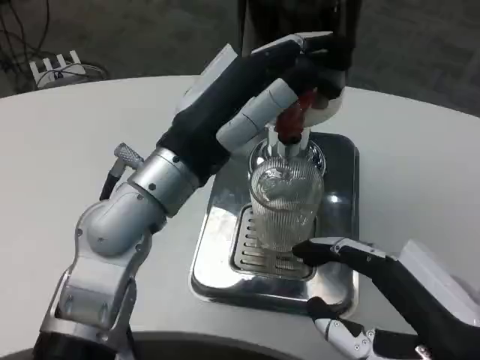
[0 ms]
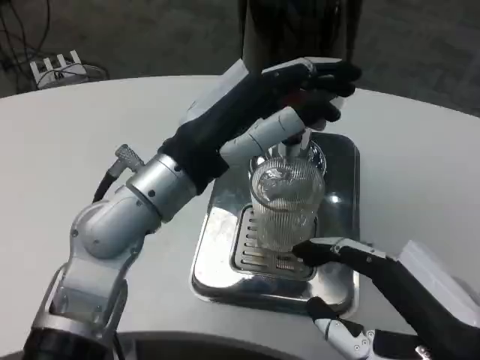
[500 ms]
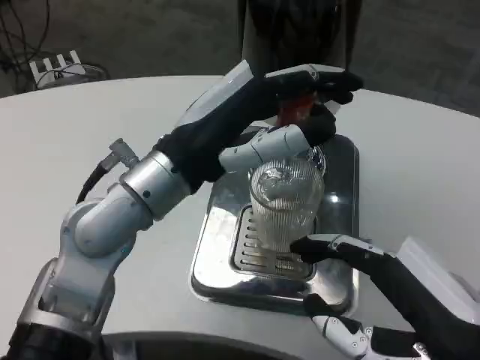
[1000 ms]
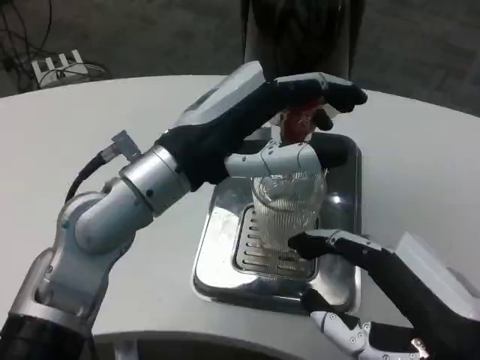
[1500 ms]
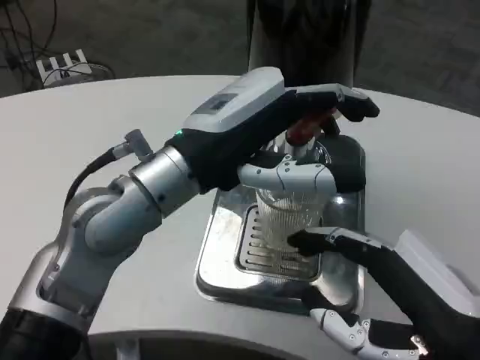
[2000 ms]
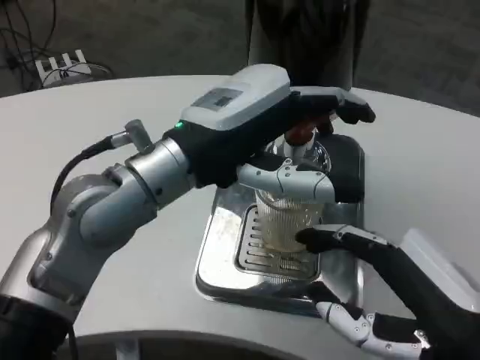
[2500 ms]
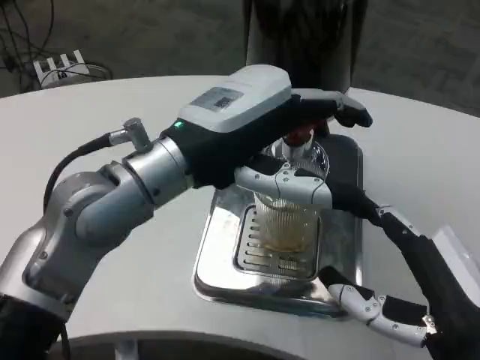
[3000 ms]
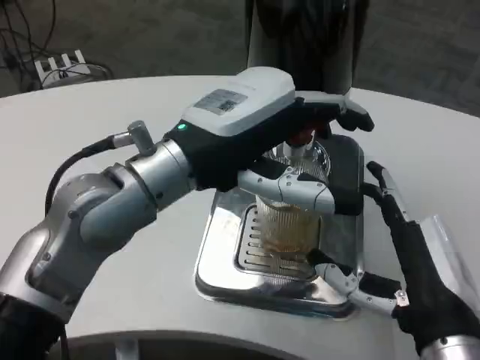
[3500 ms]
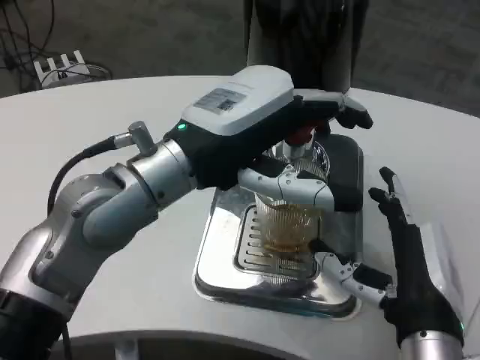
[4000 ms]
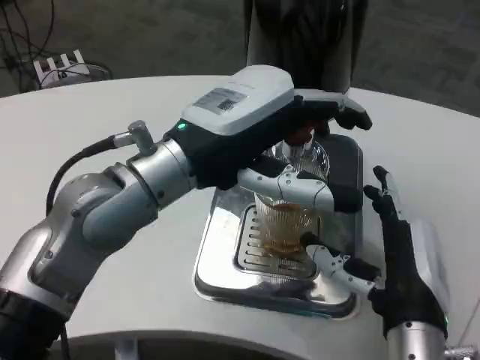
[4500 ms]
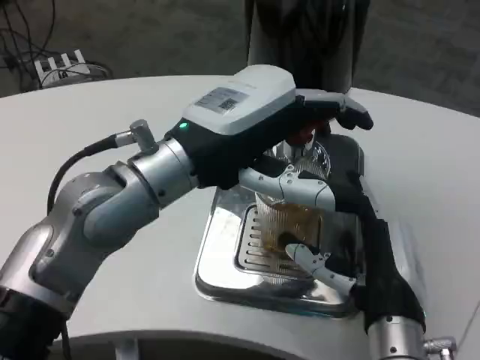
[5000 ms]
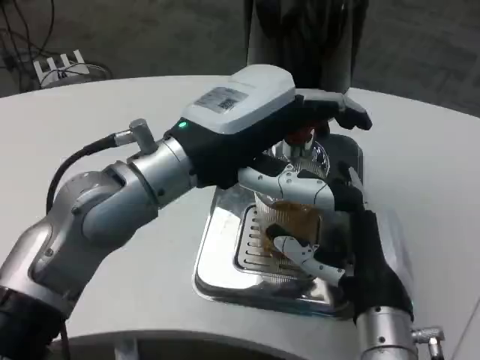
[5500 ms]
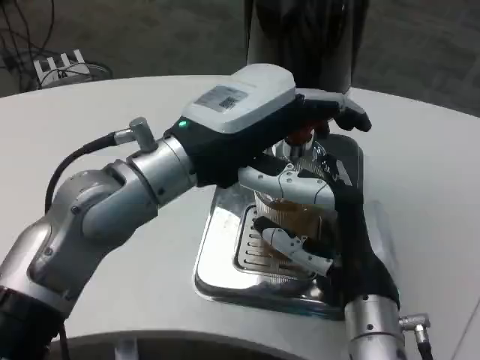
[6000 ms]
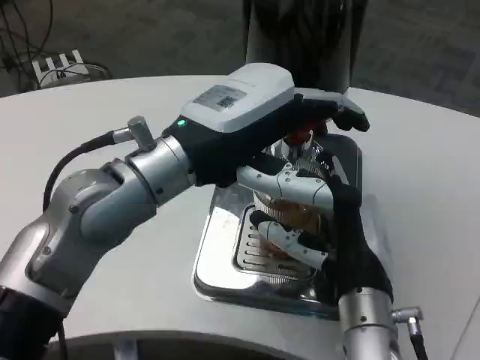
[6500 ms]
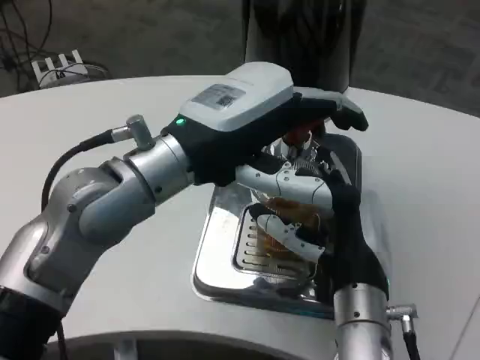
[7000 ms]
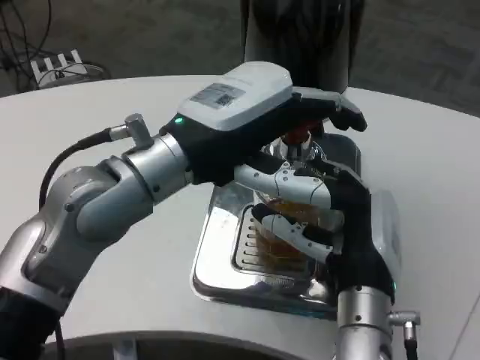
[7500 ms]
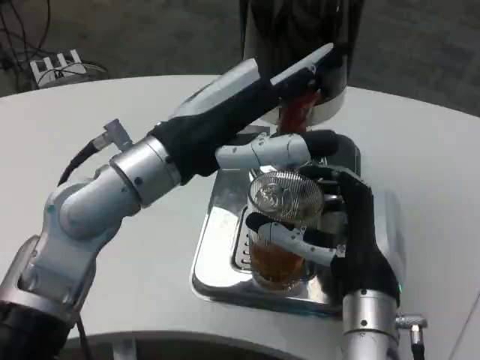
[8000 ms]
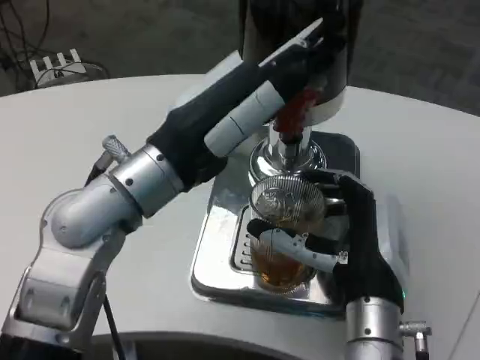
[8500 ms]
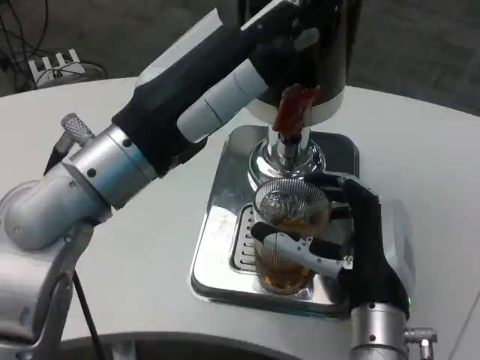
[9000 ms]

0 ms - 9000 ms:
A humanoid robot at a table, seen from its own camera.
Task of the whole recording: Grasp the cup under the faucet to collect the drink, then remove the cup.
2000 ms - 4500 ms: The right hand travels forward, to the left and downward by roughly 10 cm.
4500 ms - 7000 ms: The right hand moves some 5 cm.

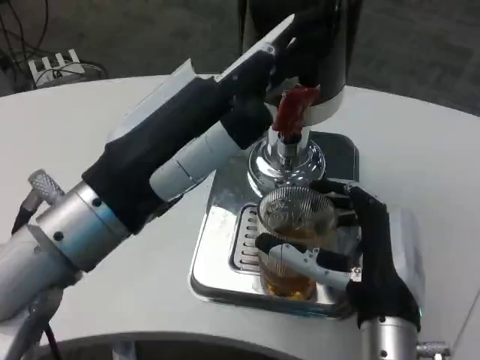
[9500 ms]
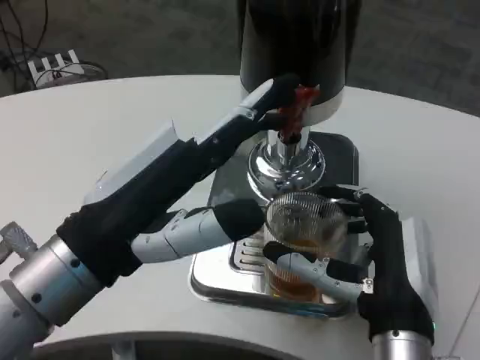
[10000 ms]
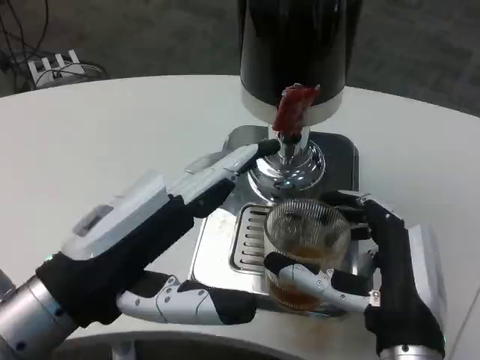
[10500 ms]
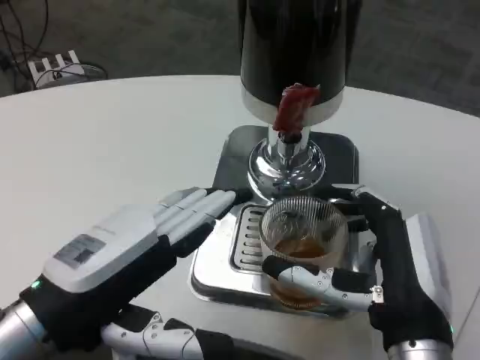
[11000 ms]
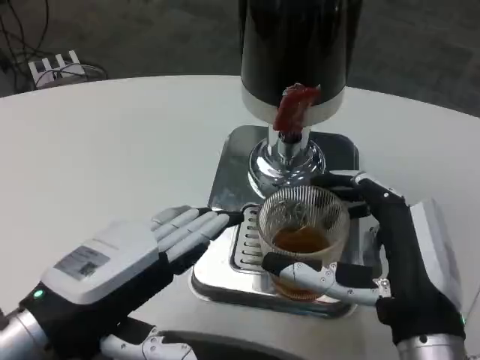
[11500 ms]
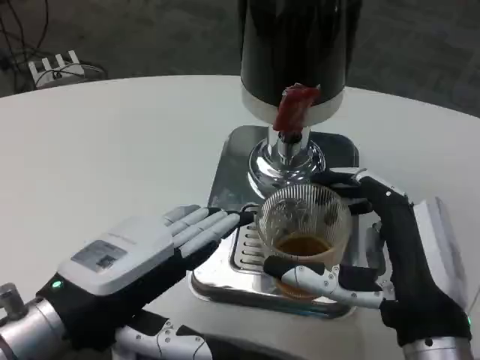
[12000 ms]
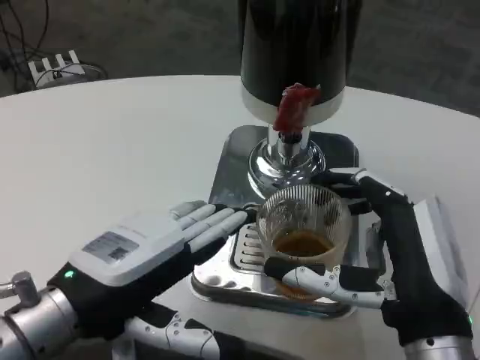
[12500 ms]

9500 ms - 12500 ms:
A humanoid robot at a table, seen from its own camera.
Task of the whole recording: Grasp the cup under the faucet to collect the drink, then remove the cup.
9500 ms - 11000 ms: The left hand travels downward and to the left by roughly 10 cm.

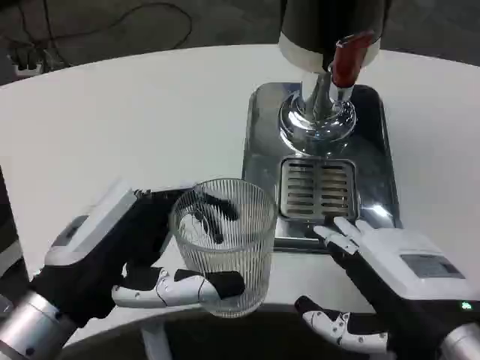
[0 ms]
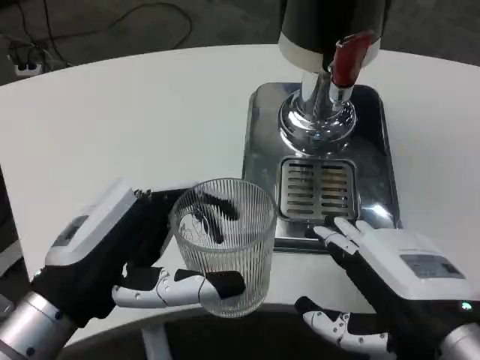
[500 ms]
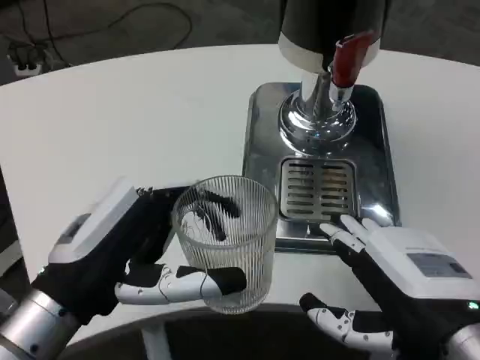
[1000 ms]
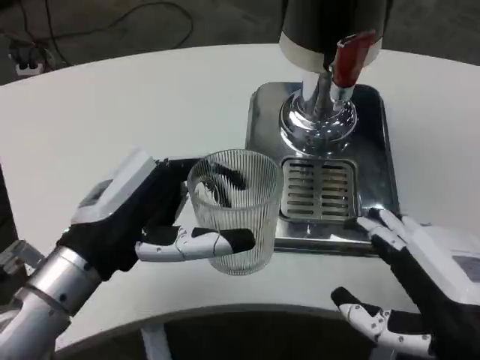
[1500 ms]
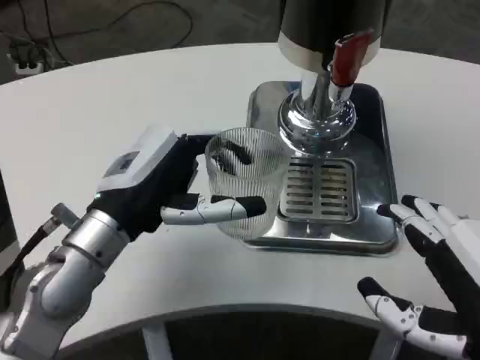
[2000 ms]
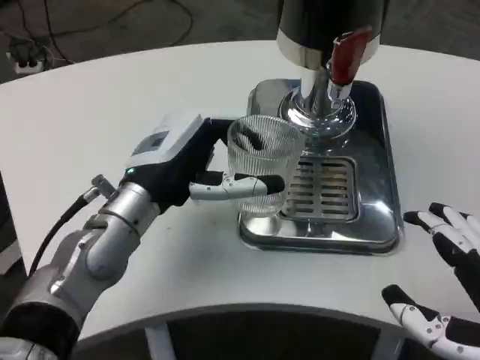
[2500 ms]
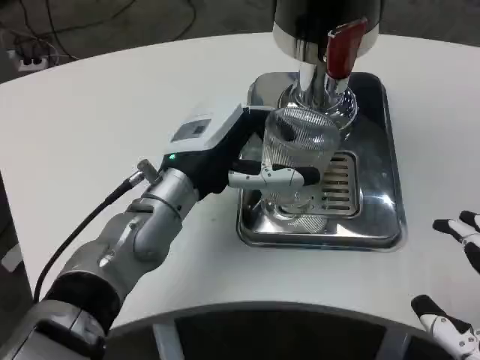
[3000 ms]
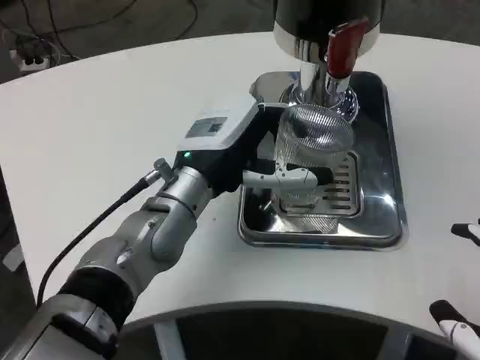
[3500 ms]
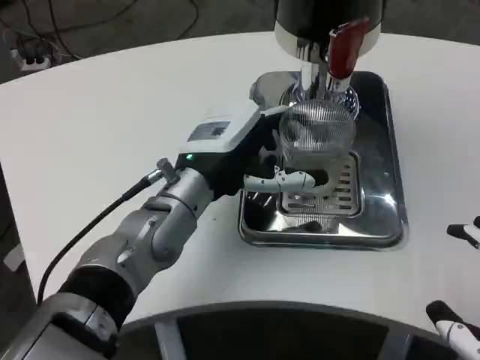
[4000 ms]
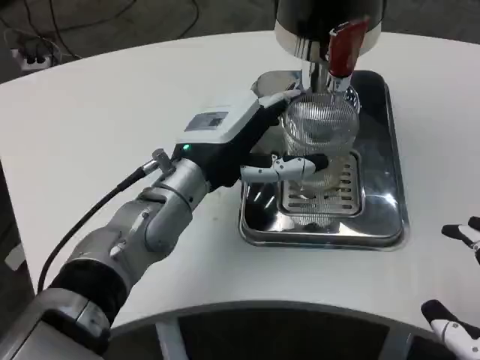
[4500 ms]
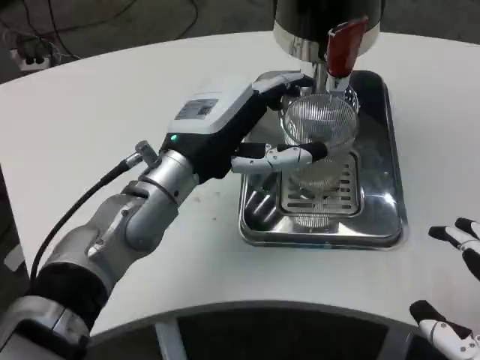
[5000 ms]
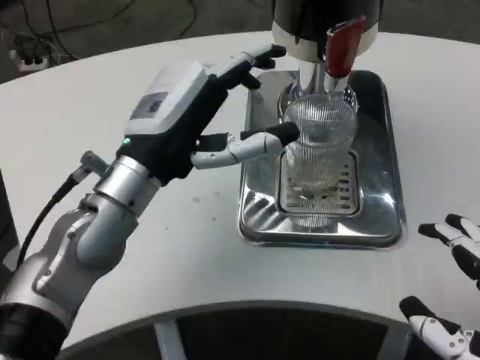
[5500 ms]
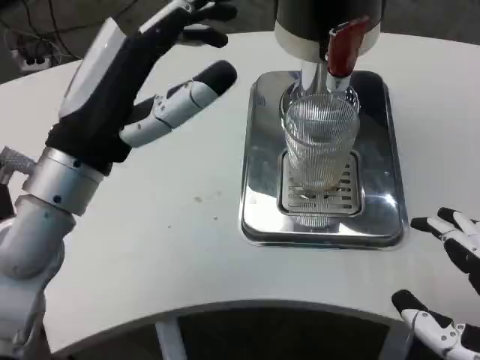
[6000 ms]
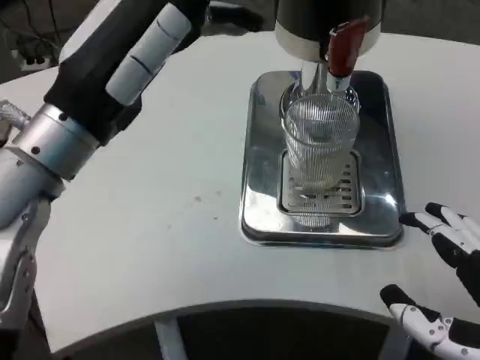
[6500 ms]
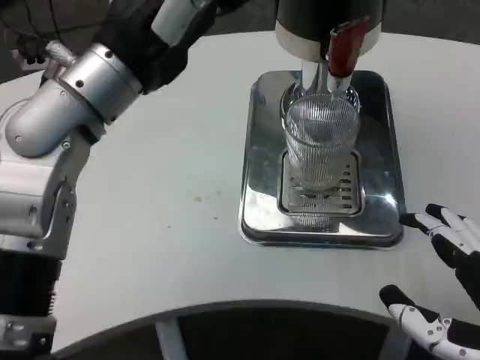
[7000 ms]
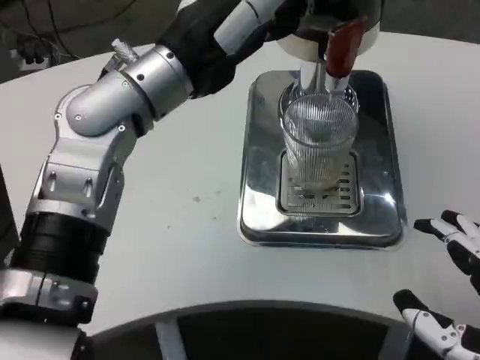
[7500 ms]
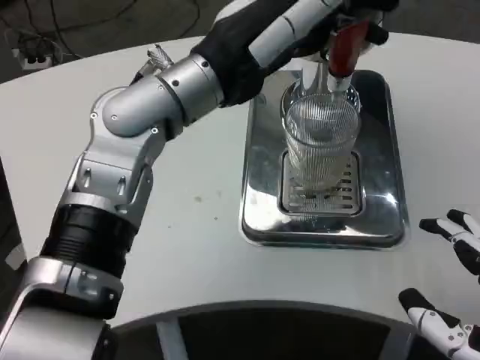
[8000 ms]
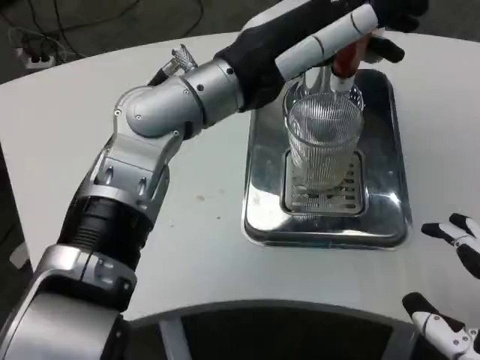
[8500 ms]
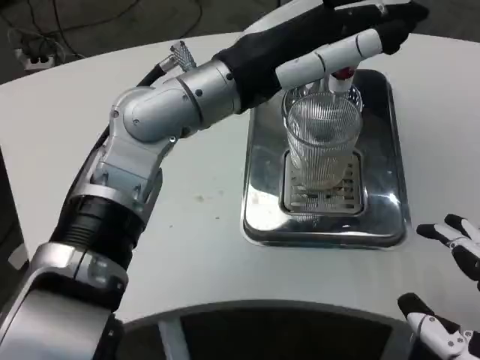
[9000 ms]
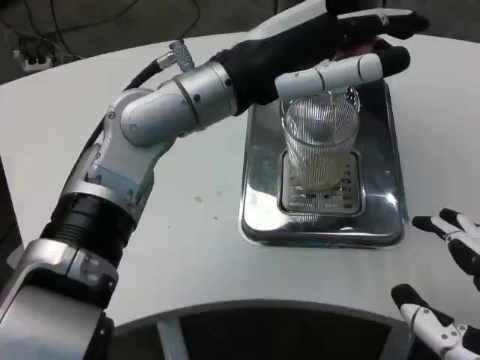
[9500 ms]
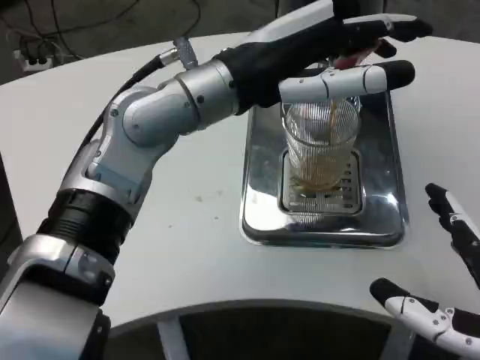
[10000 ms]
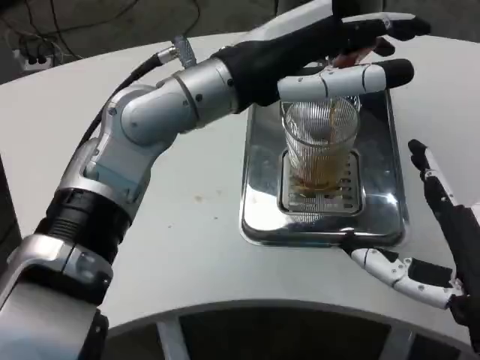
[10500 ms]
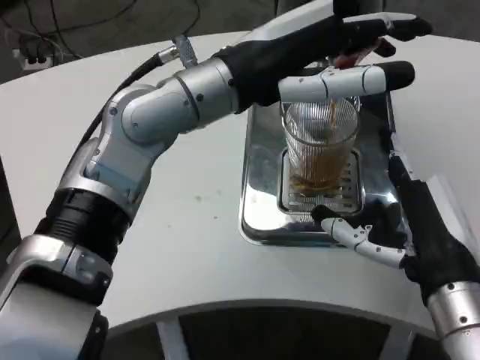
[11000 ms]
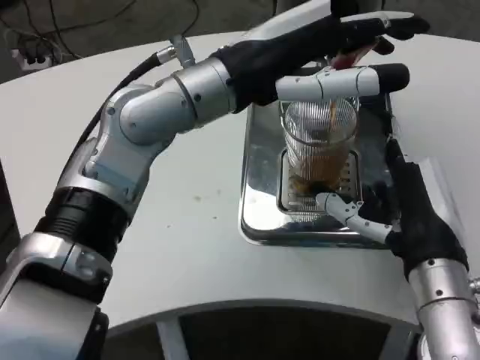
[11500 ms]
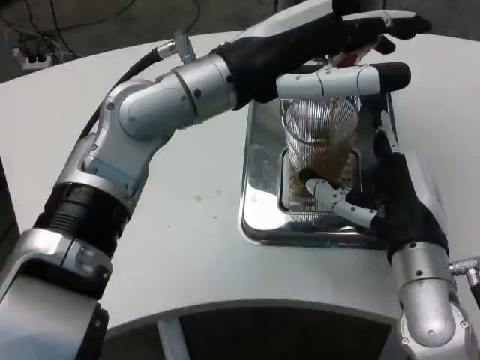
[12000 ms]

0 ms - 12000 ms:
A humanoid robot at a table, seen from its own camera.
Task of the whole recording: Grasp the cup under the faucet to collect the drink, then remove the cup.
0 ms - 2000 ms: The left hand moves forward, approximately 10 cm. The right hand moves some 5 cm.
2000 ms - 4000 ms: The right hand shifts by approximately 5 cm, while the left hand shifts some 10 cm to the right and forward.
4000 ms - 6000 ms: The left hand goes approximately 10 cm to the left, backward and upward.
6000 ms - 8000 ms: The left hand shifts some 10 cm to the right, upward and forward.
10000 ms - 12000 ms: The right hand shifts some 15 cm forward and to the left.

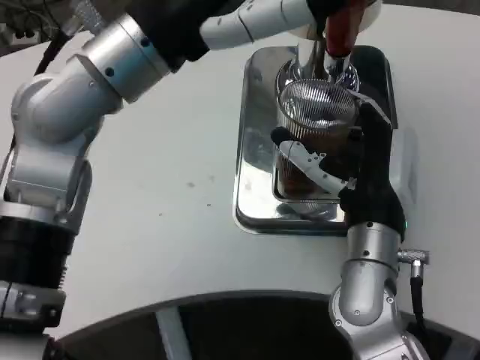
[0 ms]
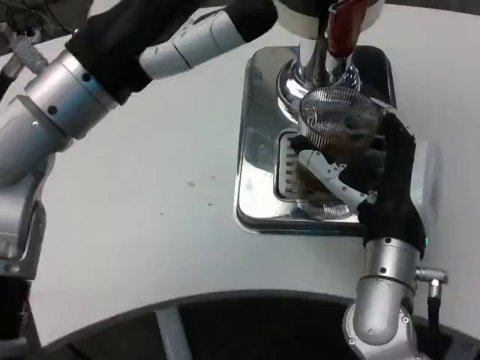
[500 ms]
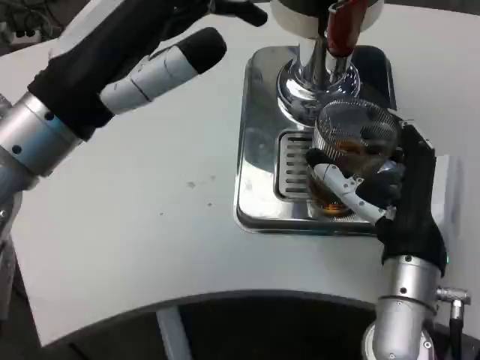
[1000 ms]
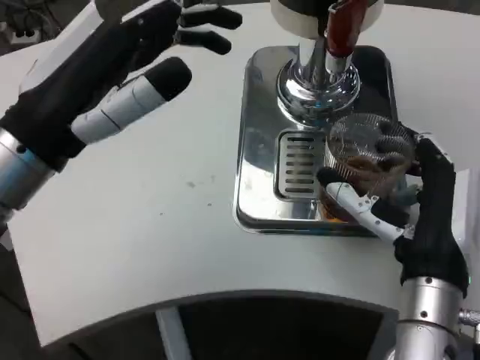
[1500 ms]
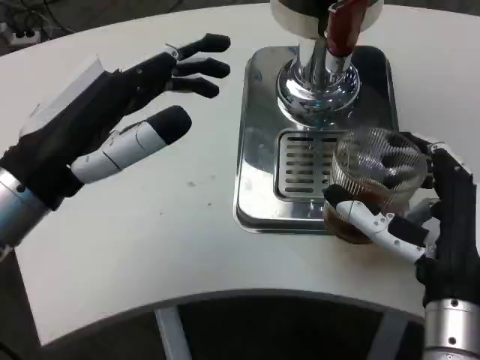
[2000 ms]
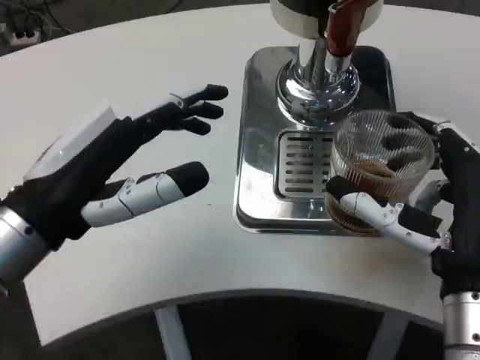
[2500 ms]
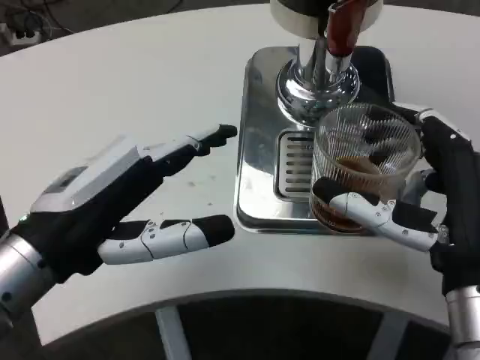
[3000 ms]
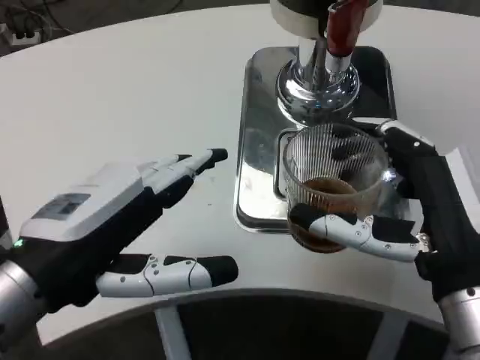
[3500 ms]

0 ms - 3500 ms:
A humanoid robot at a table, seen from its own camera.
Task of the whole recording: Grasp the cup under the faucet to collect the drink, then remove the cup.
0 ms - 2000 ms: The left hand is displaced downward, to the left and backward by about 15 cm. Meanwhile the right hand is displaced backward by some 10 cm.
2000 ms - 3500 ms: The left hand moves backward, roughly 5 cm.
